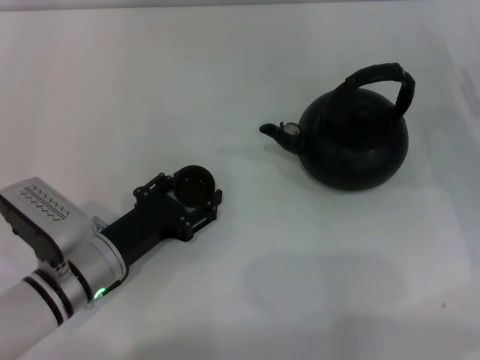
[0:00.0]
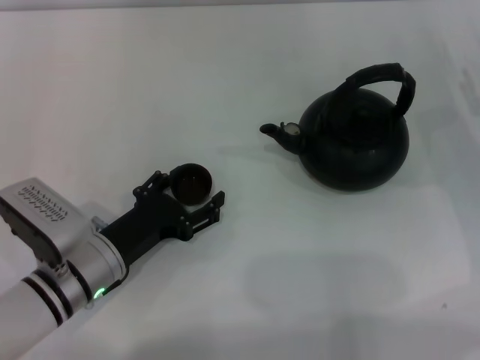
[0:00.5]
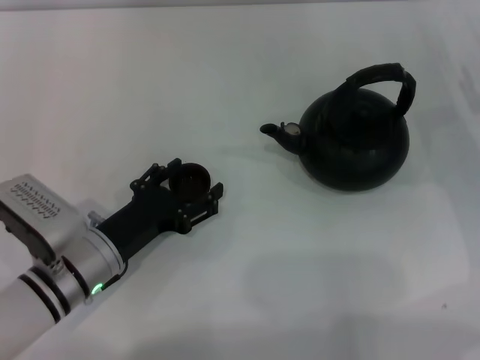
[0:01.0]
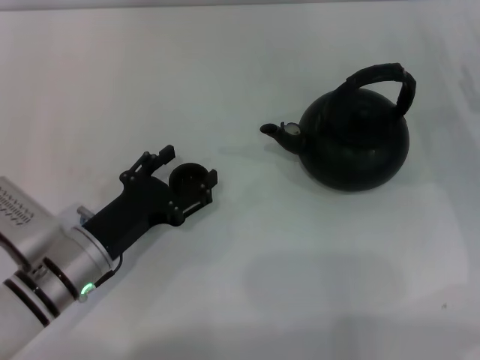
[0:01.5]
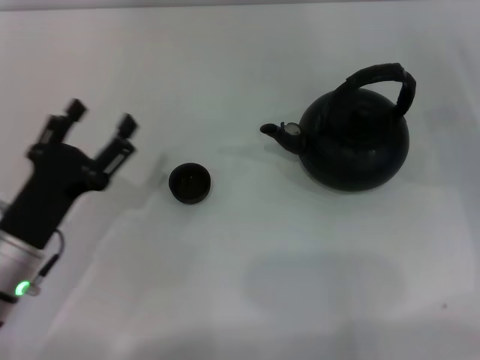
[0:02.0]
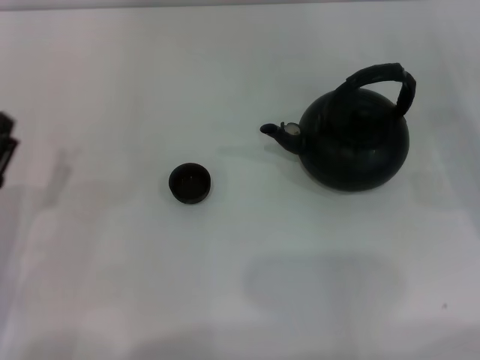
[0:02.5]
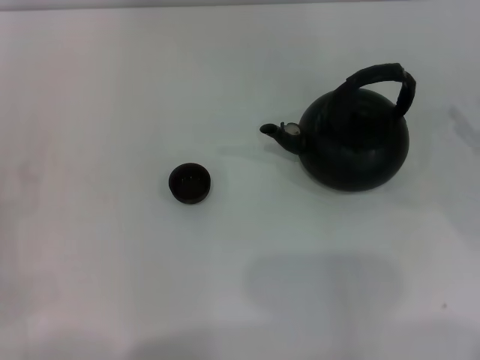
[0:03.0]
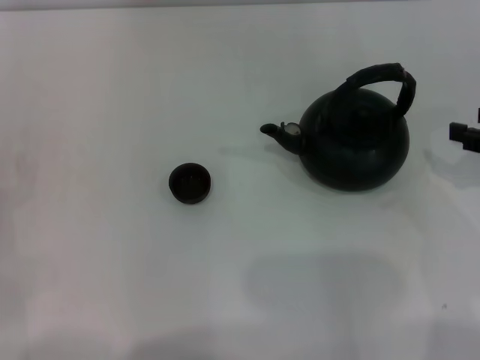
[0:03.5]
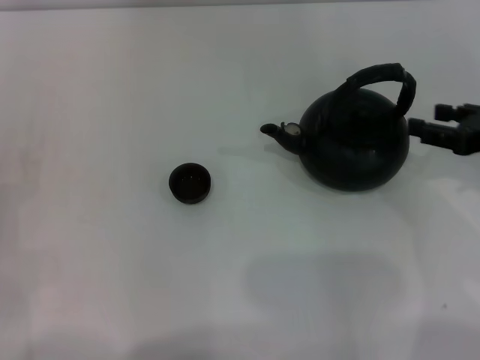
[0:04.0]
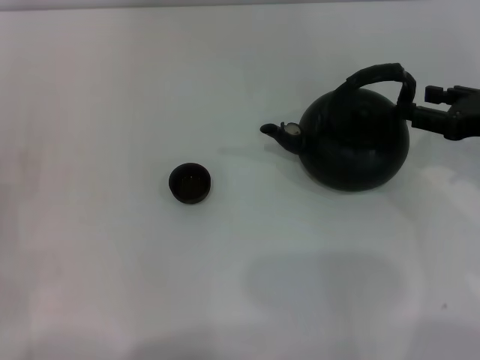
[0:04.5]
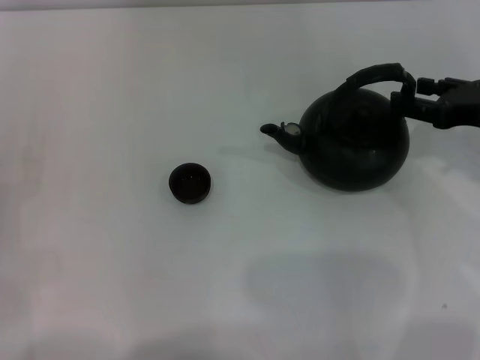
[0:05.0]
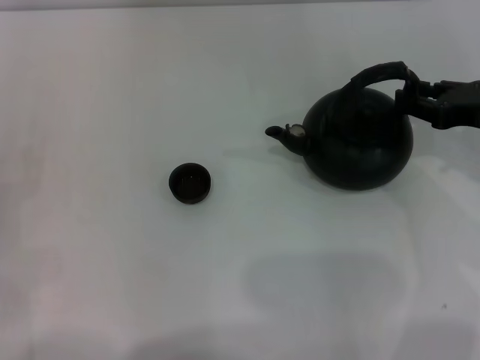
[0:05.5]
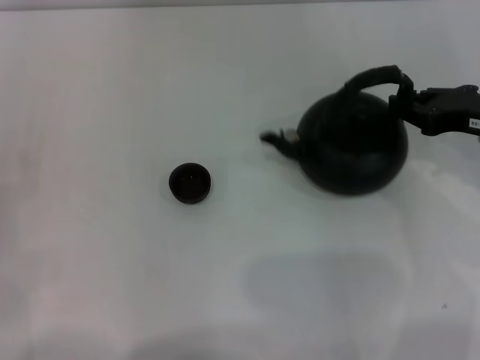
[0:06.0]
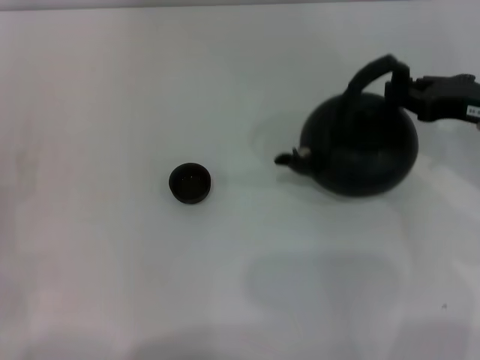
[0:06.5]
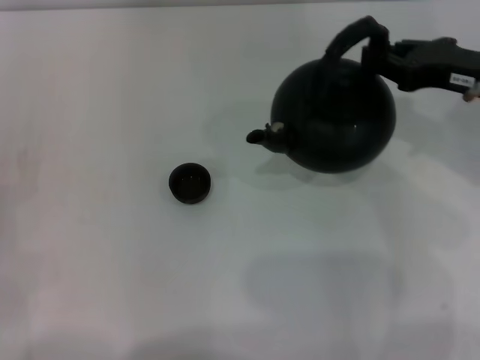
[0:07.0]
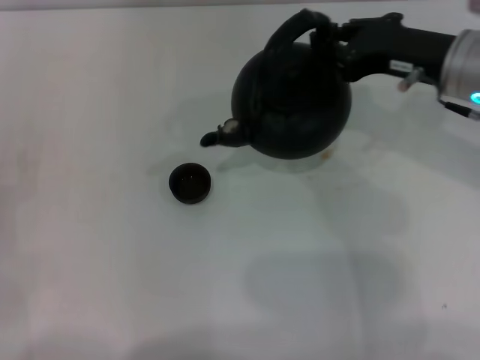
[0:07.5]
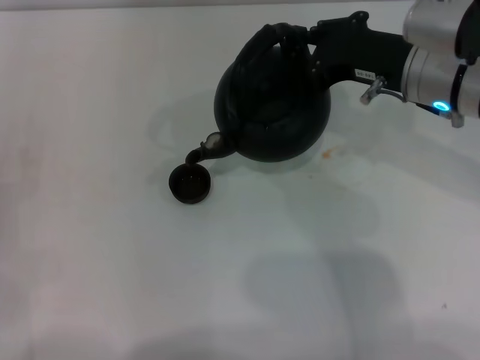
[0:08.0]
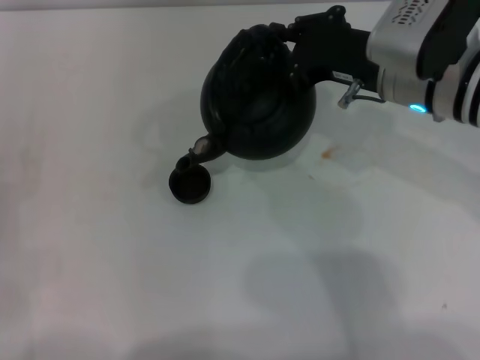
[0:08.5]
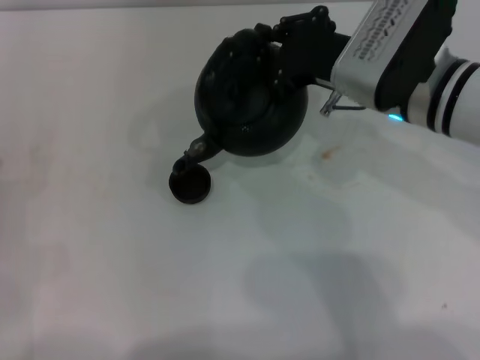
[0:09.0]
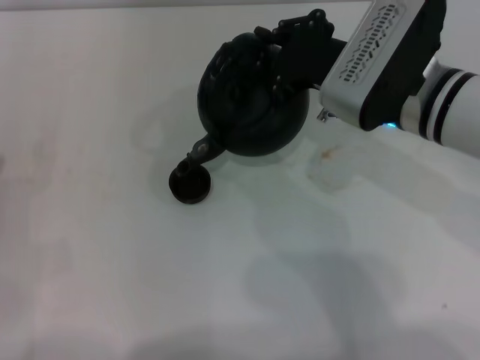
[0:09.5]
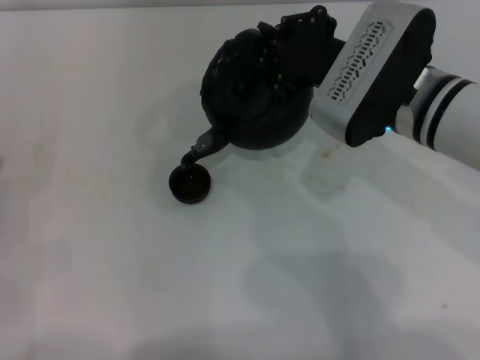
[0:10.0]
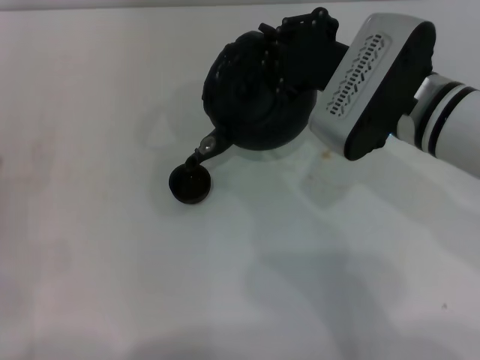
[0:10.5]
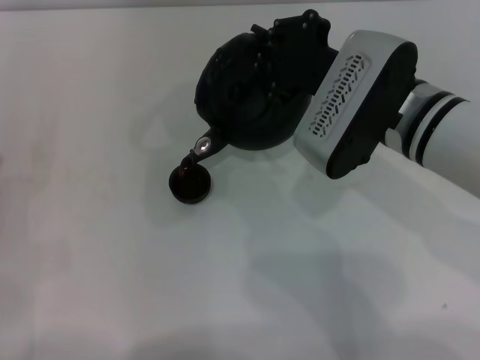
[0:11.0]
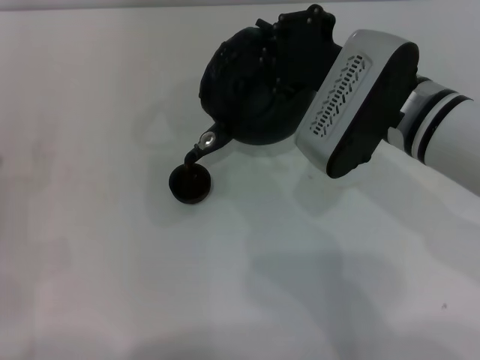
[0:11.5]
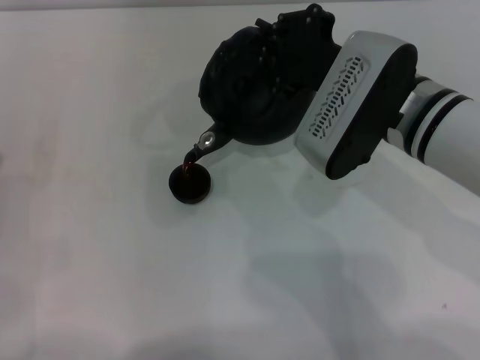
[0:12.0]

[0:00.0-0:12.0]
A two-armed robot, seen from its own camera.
Task of the whole recording: Grasp the handle of the teapot with one hand and pour tea into the teacup.
Step, 0:02.0 to 0:07.0: Pick up the teapot with the right gripper.
0:00.0 to 0:02.0: The left gripper changes place by approximately 5 cm, and opens.
0:02.0 to 0:04.0: The left gripper shifts roughly 10 cm to the left. Meanwhile the right gripper is displaced upward by about 10 cm.
0:04.0 to 0:06.0: The right gripper closes.
0:06.0 to 0:08.0: The right gripper is displaced to the left by approximately 10 cm.
0:10.0 to 0:12.0: The grippers move only a little.

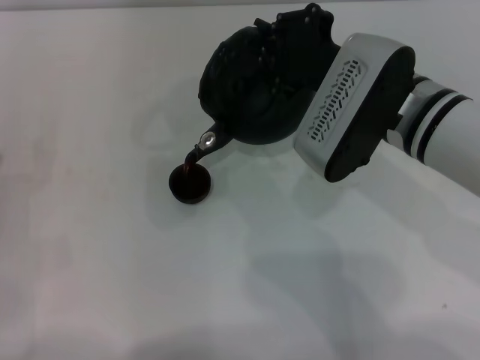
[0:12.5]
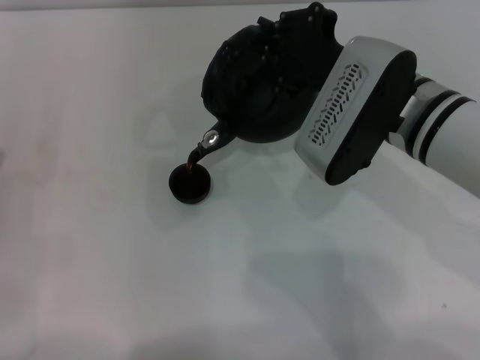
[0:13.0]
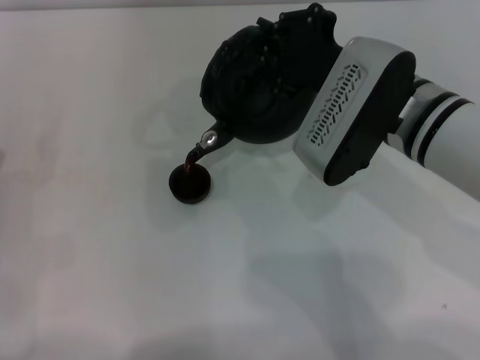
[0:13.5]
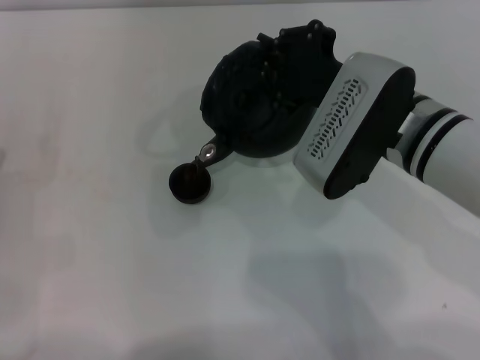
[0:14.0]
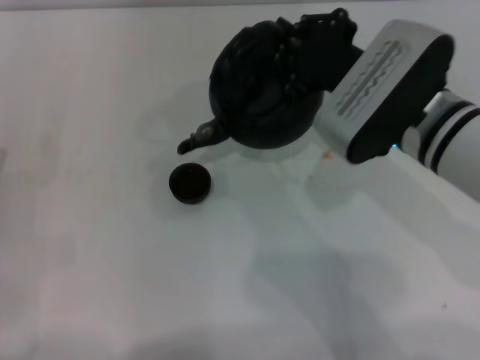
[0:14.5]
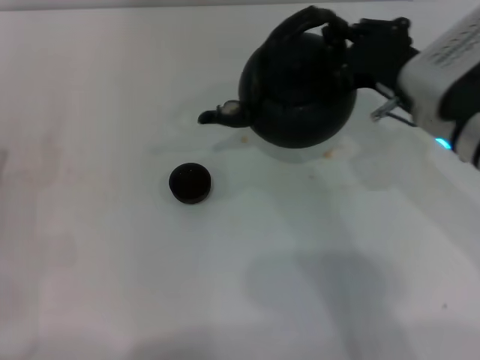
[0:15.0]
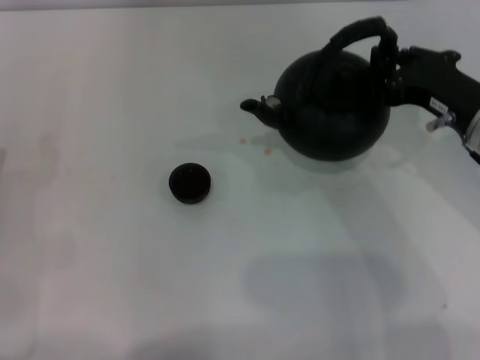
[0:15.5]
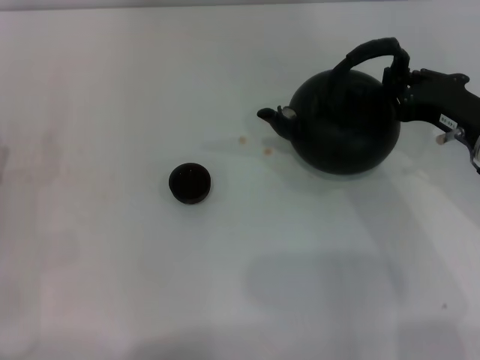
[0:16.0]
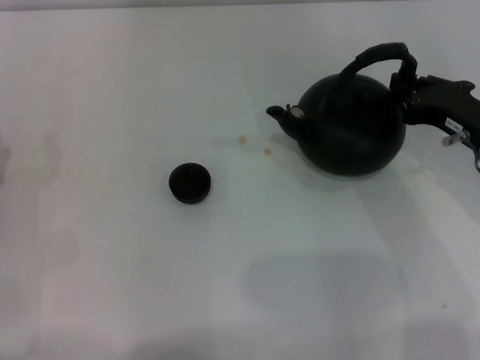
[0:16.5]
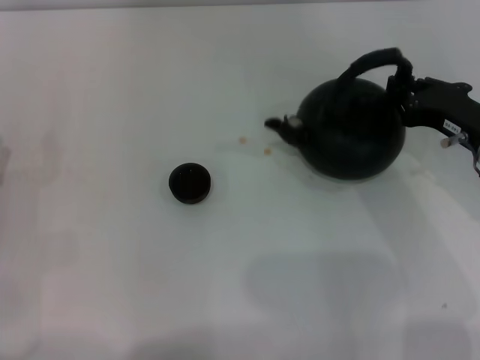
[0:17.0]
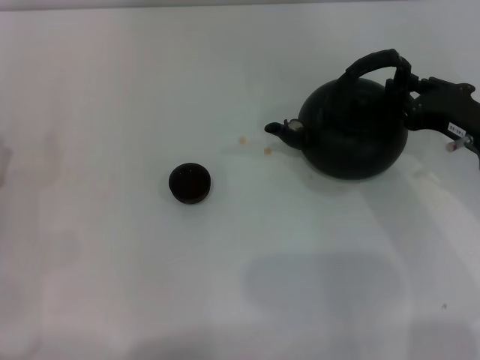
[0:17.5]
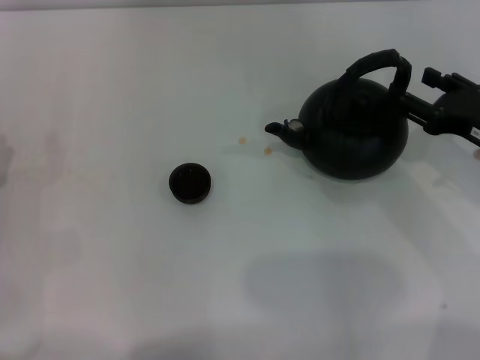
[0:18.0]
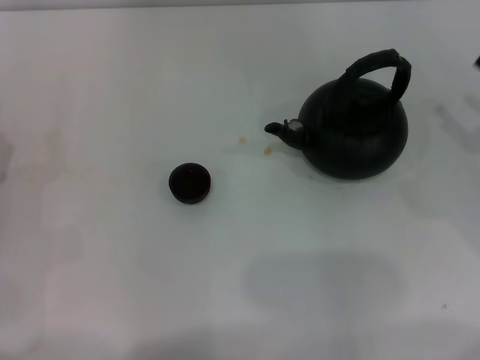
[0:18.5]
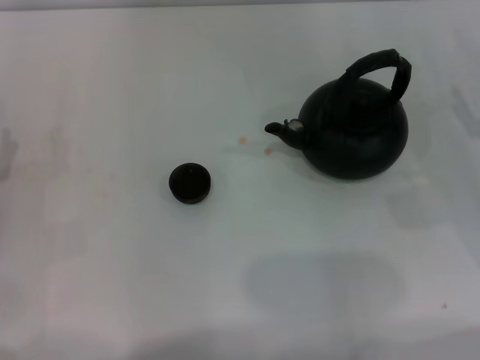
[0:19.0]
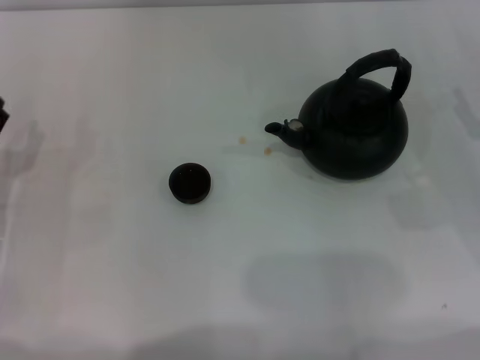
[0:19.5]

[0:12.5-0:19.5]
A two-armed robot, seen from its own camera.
Task of the whole recording: Grasp the handle of the teapot with one hand and pour tea into the teacup.
Step, 0:12.5 to 0:14.5: Pour tea into the teacup with the right gripper.
Step, 0:15.0 to 0:17.5: Put down the teapot with the right gripper.
0:12.5 to 0:14.5: The grippers make only small movements.
0:14.5 to 0:16.0: The right gripper goes some 10 cm to the right.
0:16.0 to 0:17.5: The grippers stay close to where they were, moving slightly.
0:17.5 to 0:19.5: The right gripper moves to the right, roughly 10 cm, and opens up.

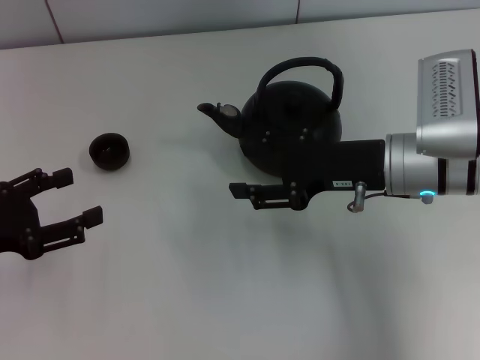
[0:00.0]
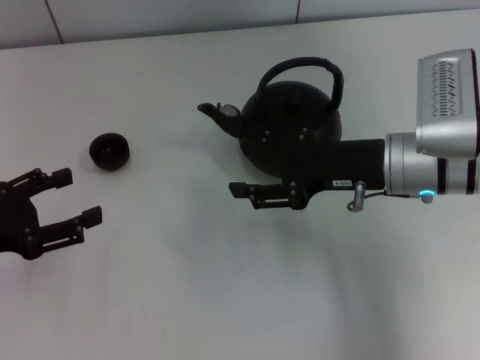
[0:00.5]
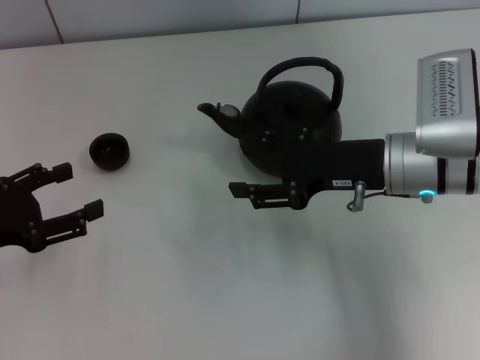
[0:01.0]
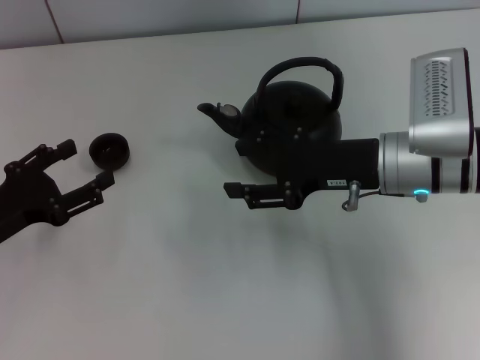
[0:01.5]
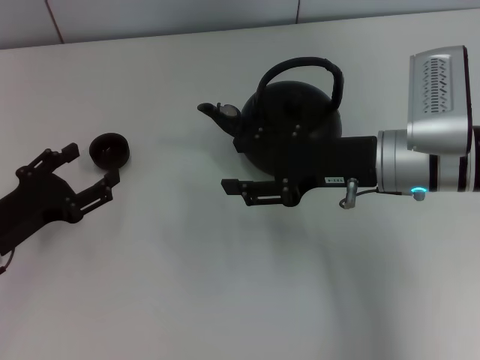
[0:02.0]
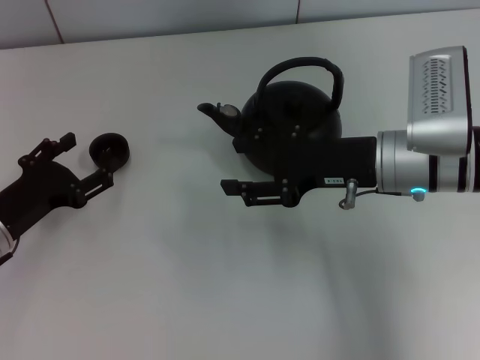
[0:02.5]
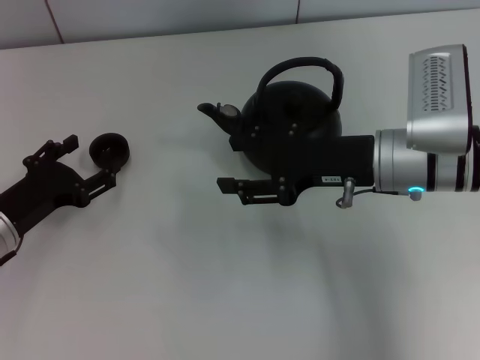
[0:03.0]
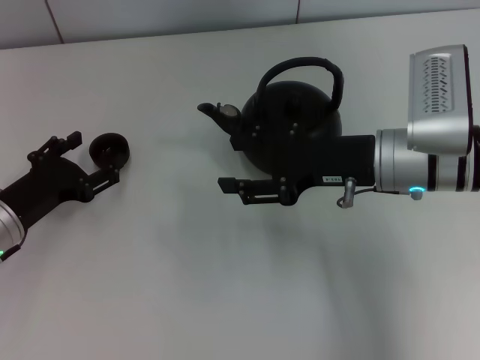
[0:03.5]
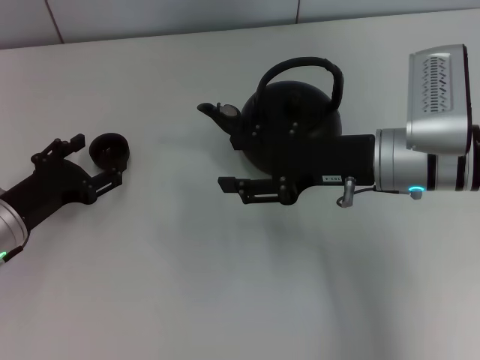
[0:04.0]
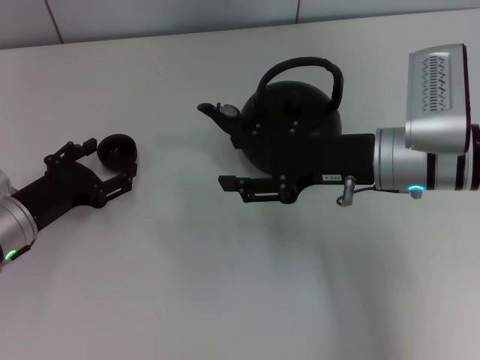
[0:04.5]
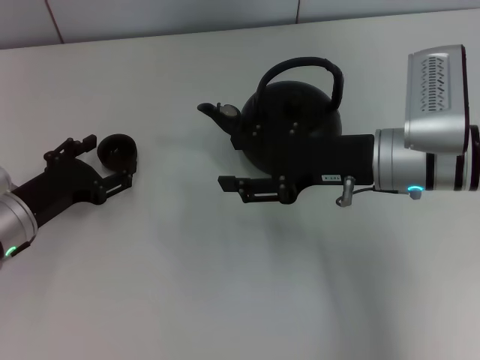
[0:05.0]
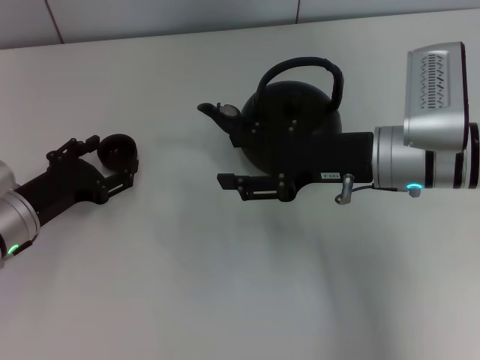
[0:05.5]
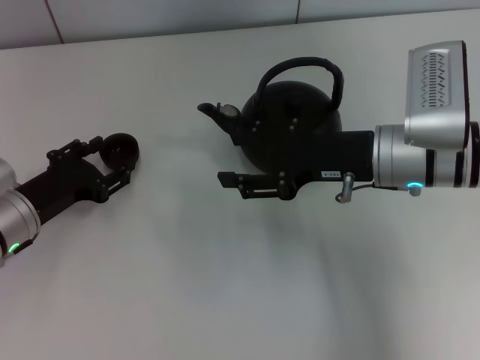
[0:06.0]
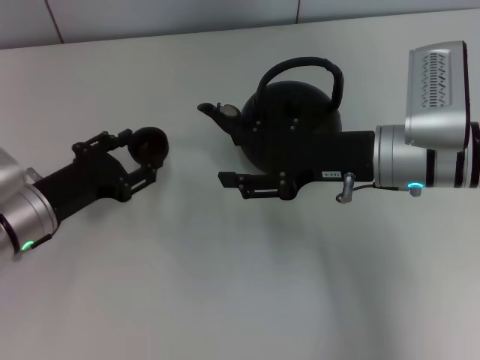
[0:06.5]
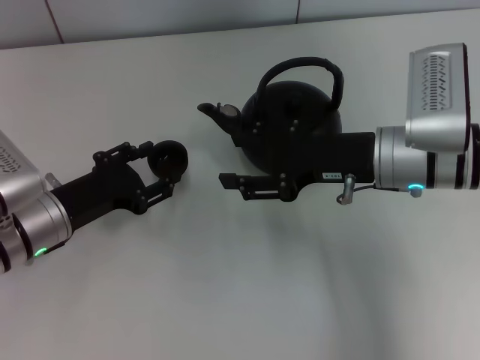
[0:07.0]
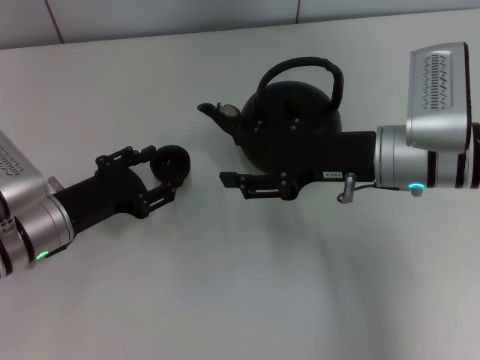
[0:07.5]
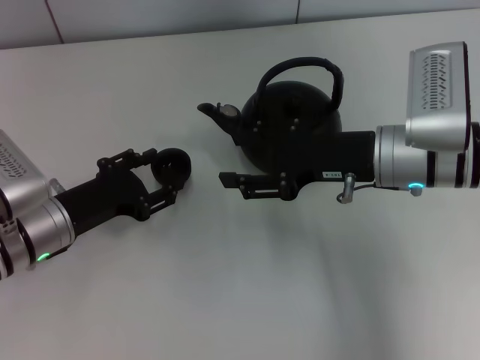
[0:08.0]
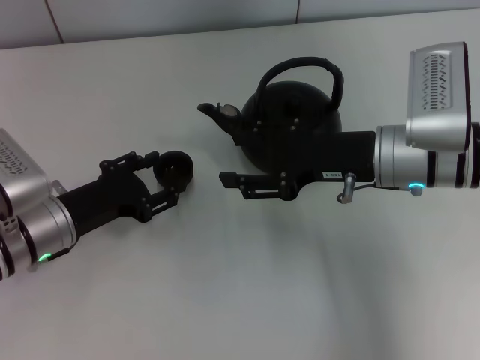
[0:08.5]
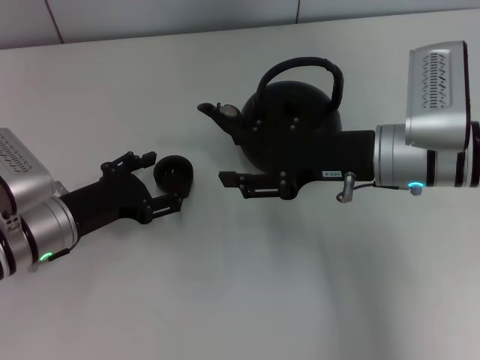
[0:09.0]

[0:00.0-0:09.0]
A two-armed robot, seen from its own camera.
Task of the whole recording: Grasp the handle of the teapot with one hand and pour tea into the teacup.
Step, 0:00.0 to 0:06.0: Pick up the teacup with the left gripper.
0:00.0 to 0:02.0: The left gripper is displaced downward by approximately 5 cm.
0:02.0 to 0:04.5: The grippers make only small movements.
0:04.5 to 0:07.0: The left gripper closes up.
0:07.0 to 0:09.0: The left gripper opens.
